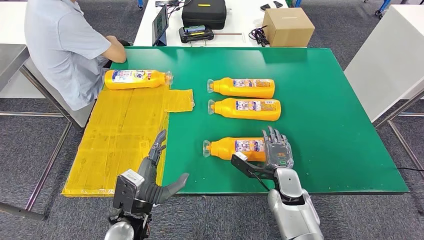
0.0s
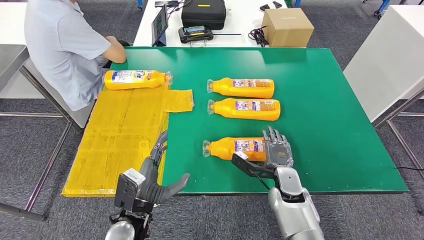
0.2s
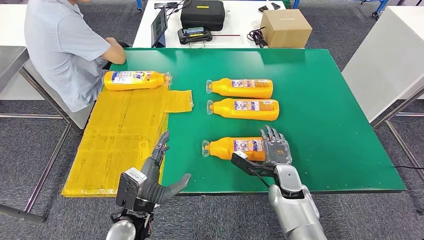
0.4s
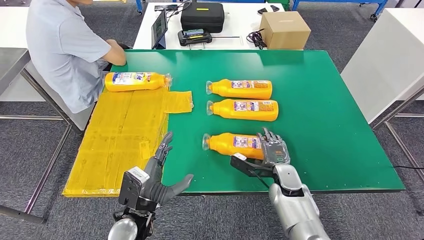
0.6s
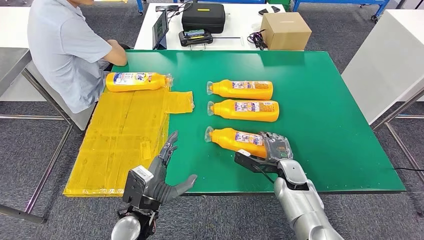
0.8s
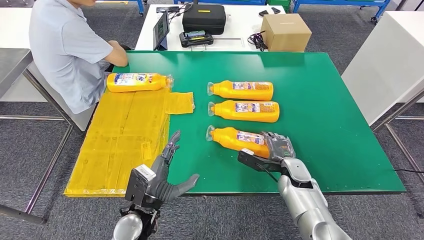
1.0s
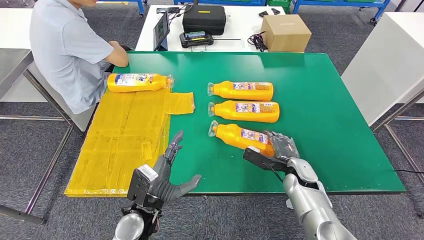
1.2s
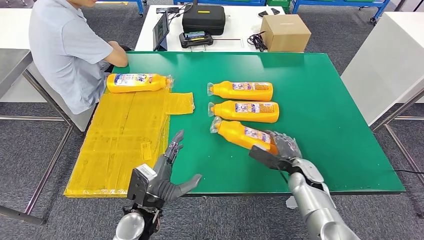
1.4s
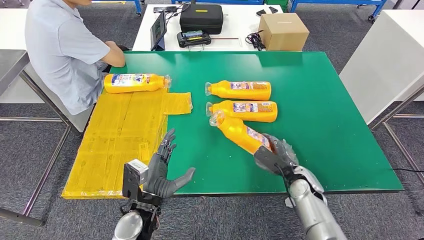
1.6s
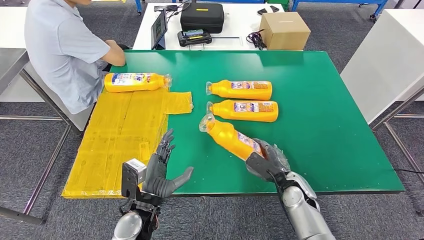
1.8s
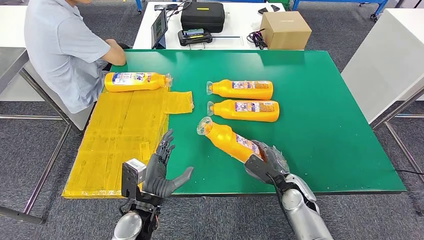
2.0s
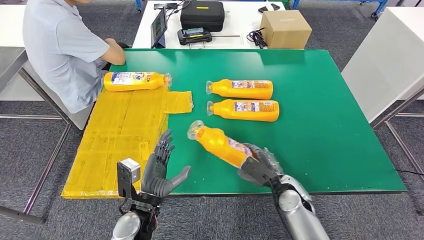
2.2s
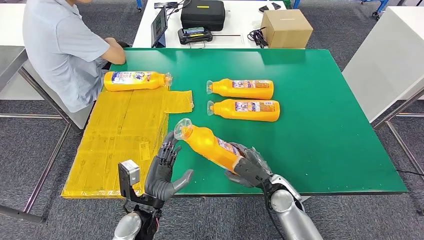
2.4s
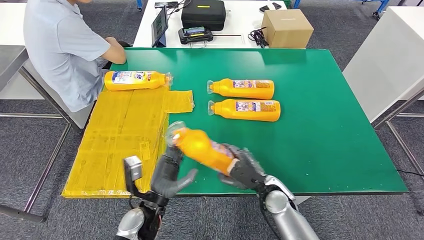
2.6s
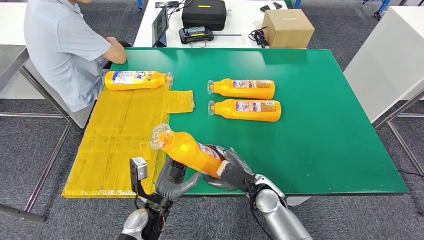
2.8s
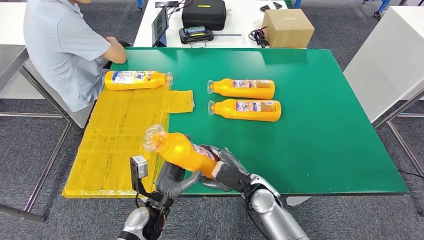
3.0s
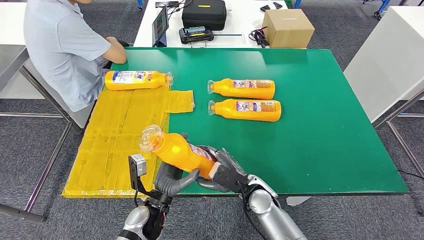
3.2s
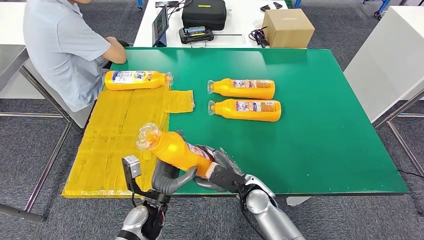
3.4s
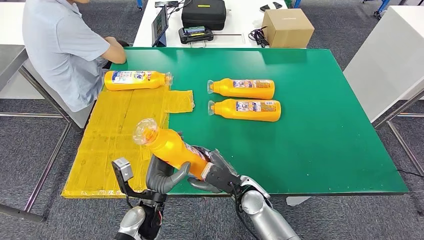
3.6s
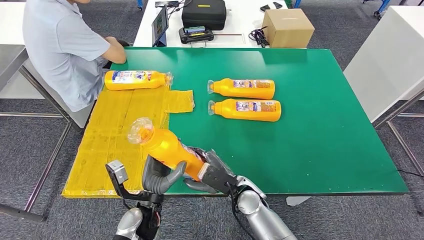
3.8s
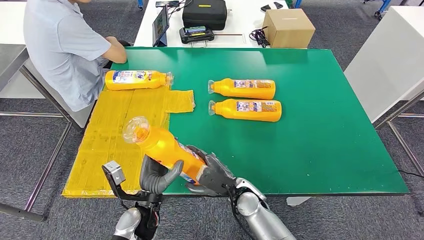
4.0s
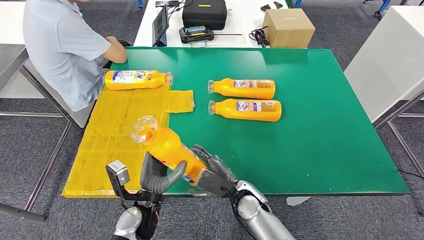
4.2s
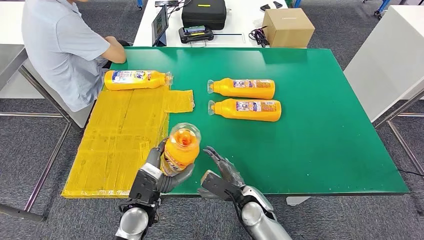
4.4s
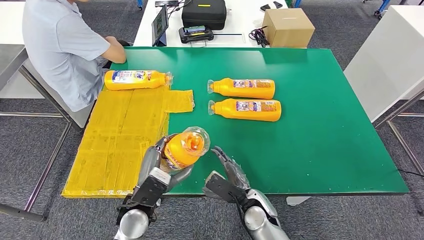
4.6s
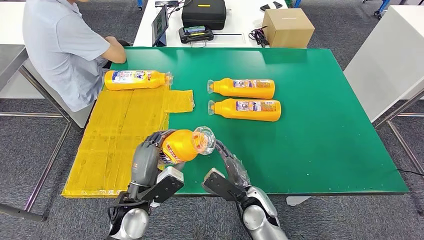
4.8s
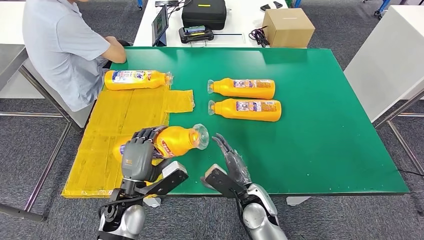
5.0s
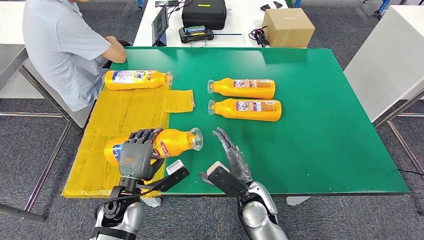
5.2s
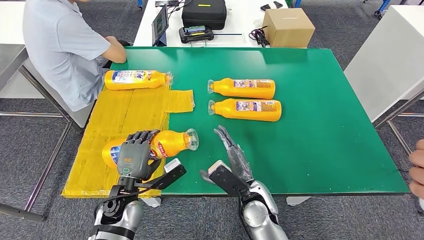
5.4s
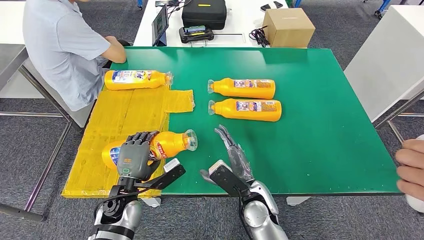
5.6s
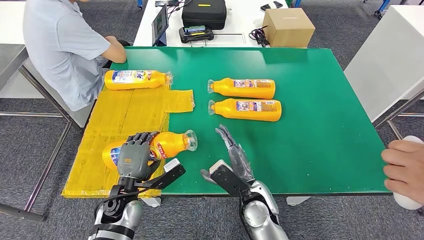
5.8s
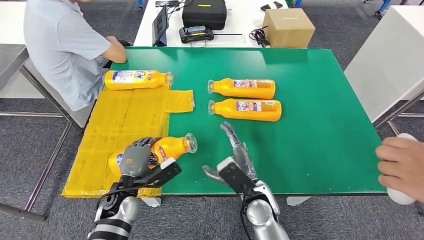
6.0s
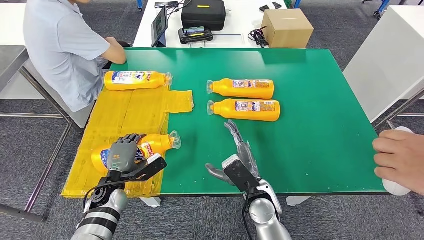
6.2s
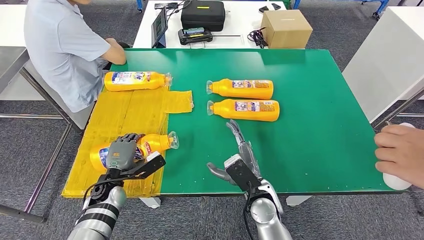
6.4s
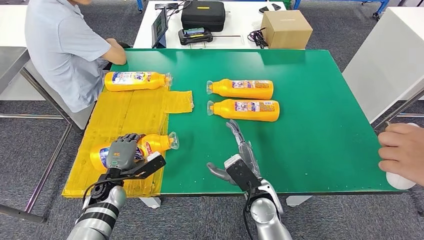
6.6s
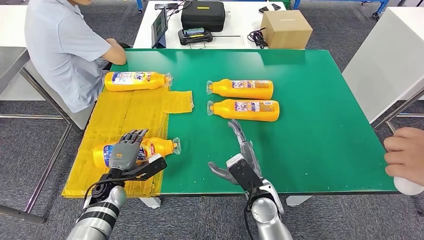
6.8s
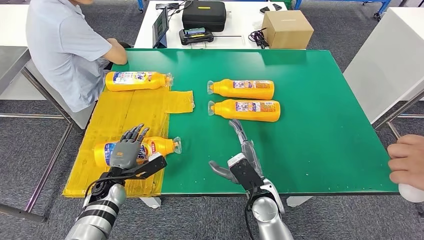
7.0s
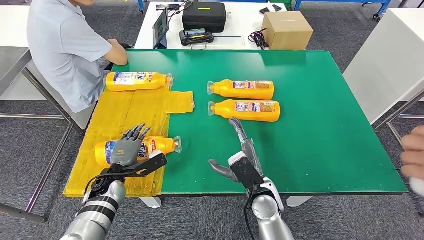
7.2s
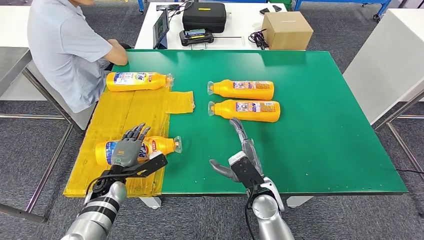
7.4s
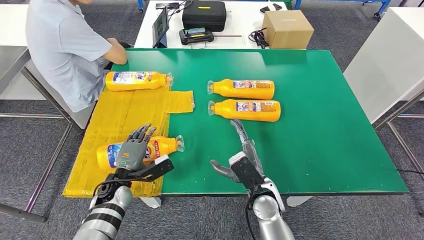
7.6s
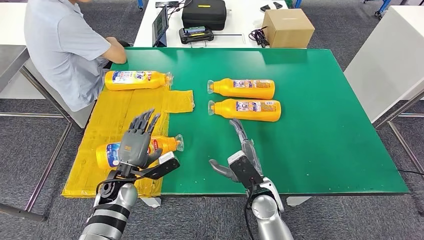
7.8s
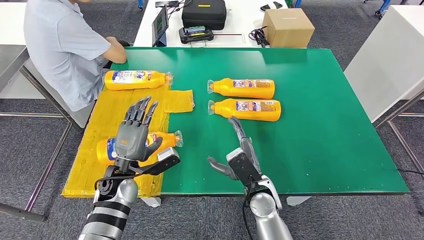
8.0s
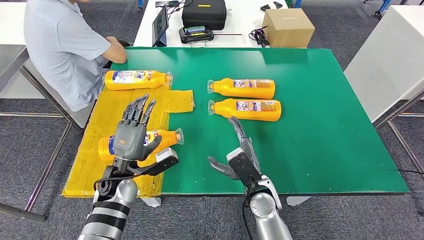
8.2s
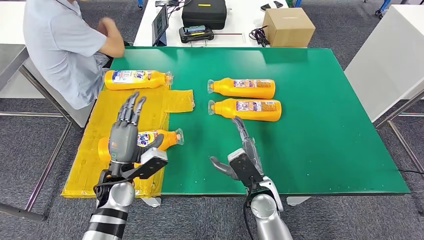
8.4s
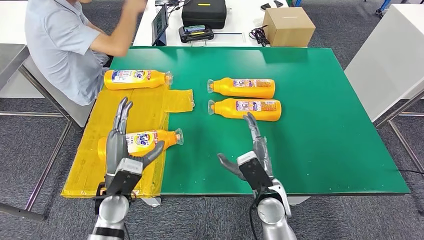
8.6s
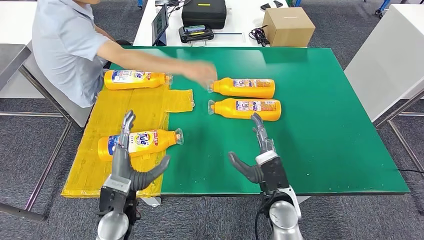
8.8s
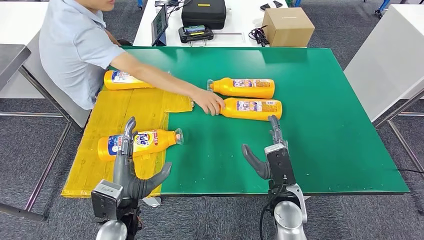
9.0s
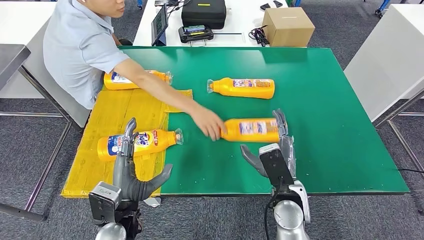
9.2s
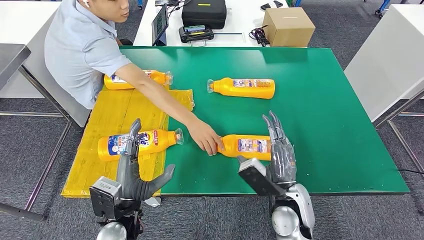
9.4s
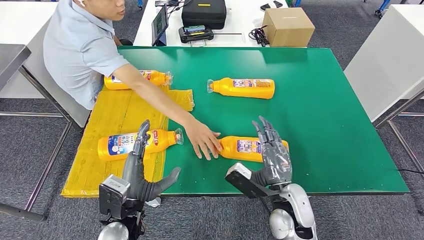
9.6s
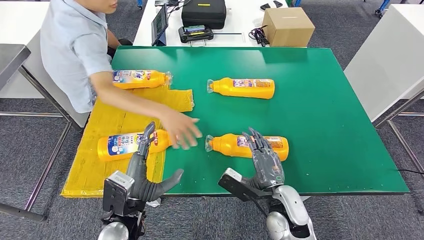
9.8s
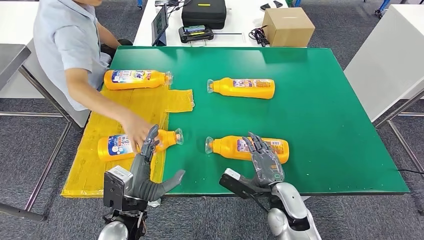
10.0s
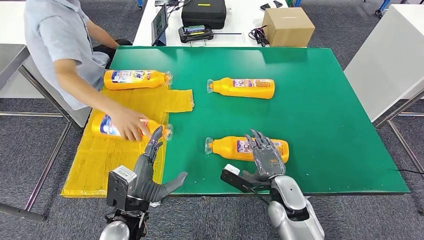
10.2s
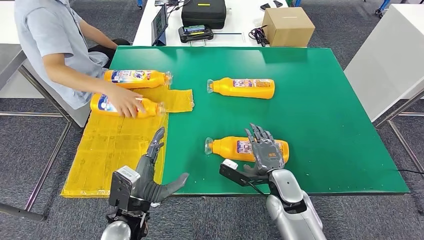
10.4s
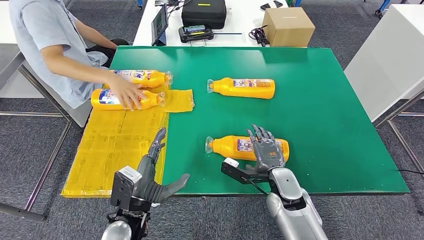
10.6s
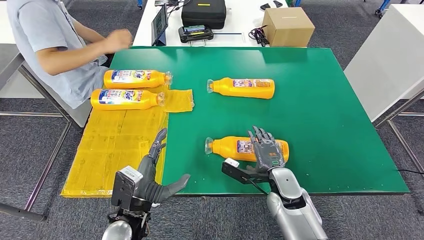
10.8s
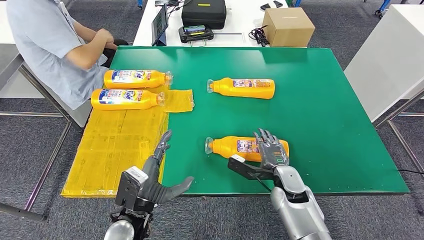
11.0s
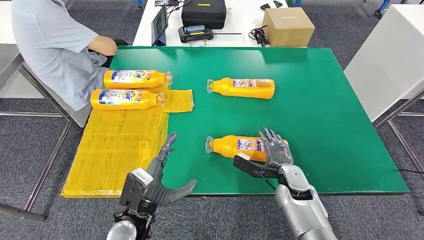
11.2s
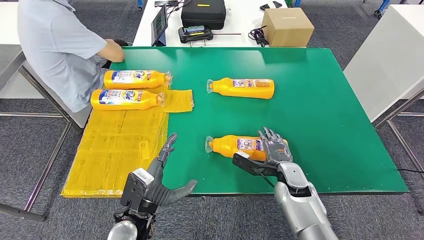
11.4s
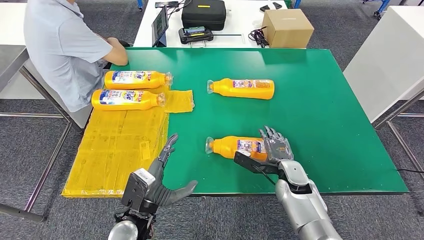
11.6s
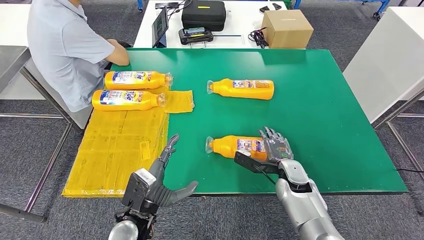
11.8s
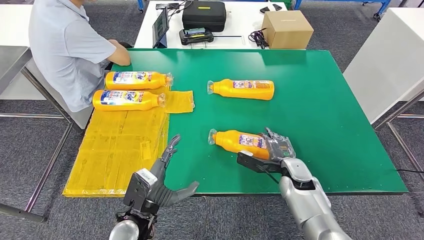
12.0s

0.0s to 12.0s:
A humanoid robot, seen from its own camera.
Step, 0.0s to 4.2s: Pick up the bottle from the table.
Step, 4.4s to 6.8s: Flip the bottle to face forward.
4.4s to 6.0s: The left hand is displaced to the left by some 5 cm. Meanwhile the right hand is displaced upward by approximately 5 cm.

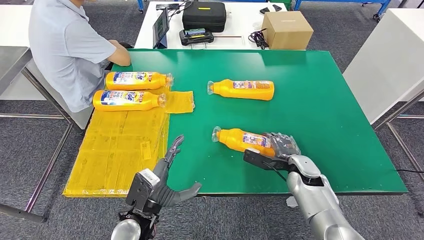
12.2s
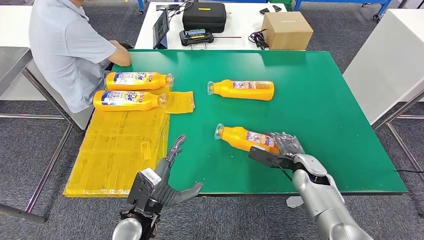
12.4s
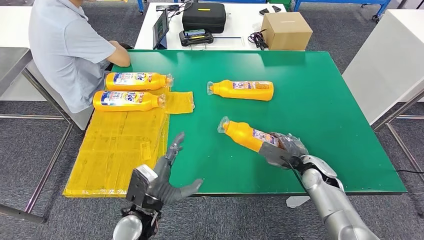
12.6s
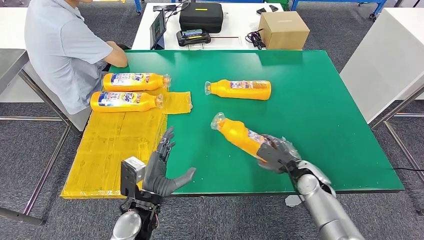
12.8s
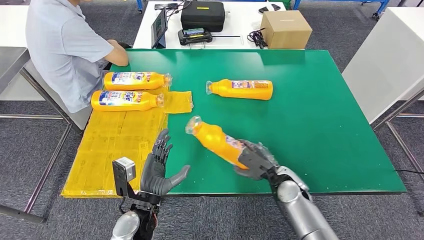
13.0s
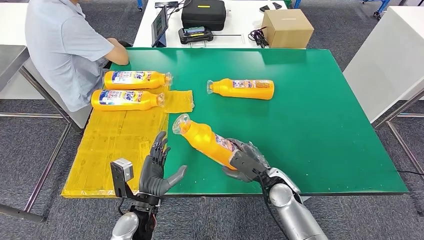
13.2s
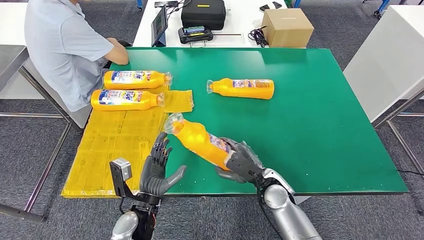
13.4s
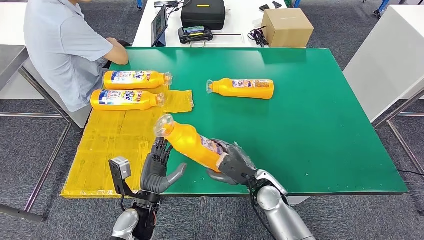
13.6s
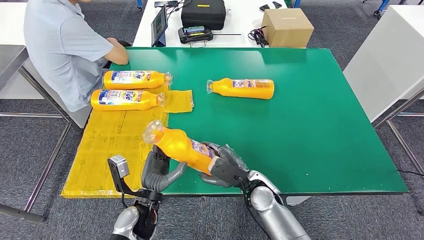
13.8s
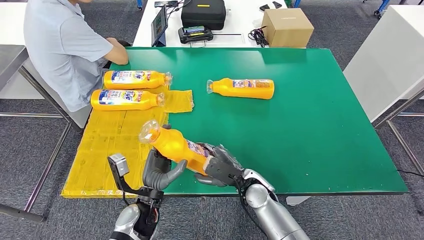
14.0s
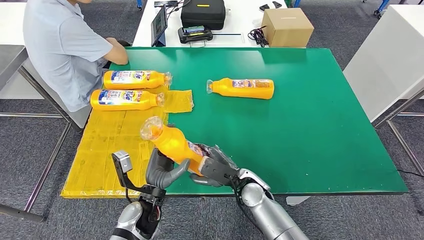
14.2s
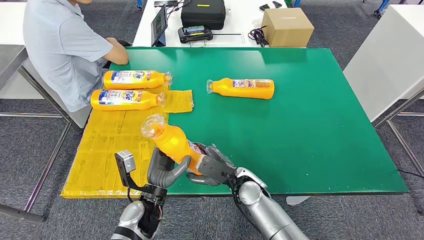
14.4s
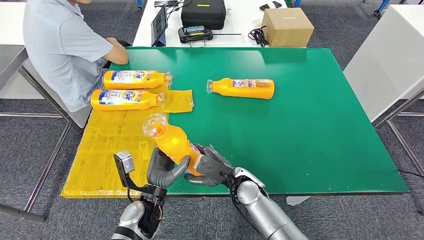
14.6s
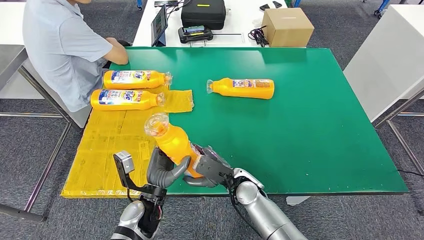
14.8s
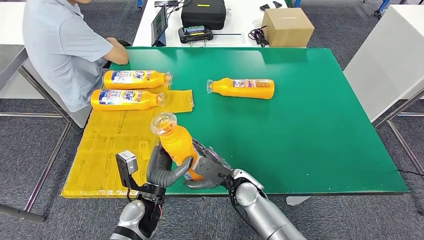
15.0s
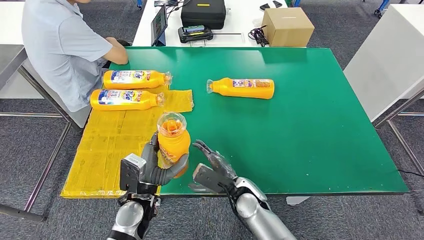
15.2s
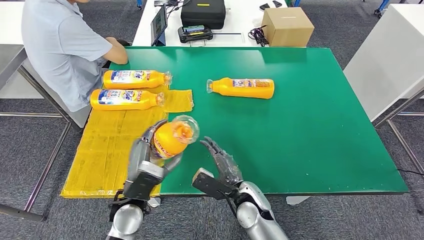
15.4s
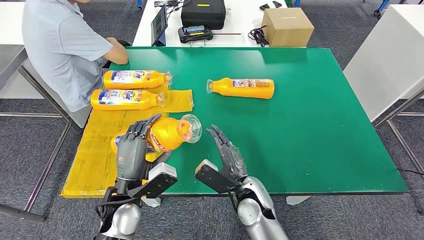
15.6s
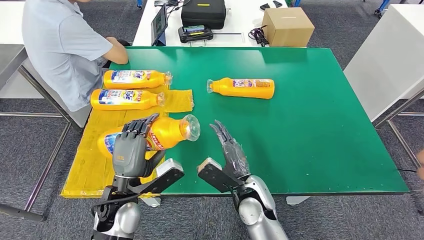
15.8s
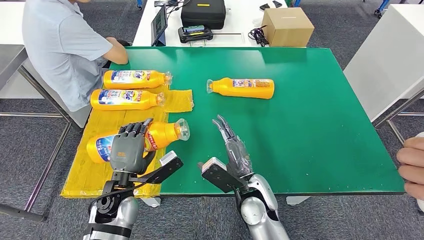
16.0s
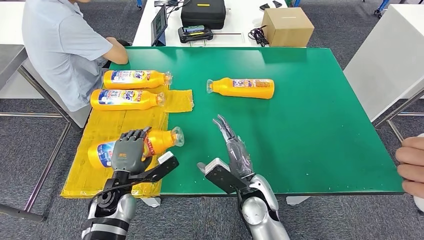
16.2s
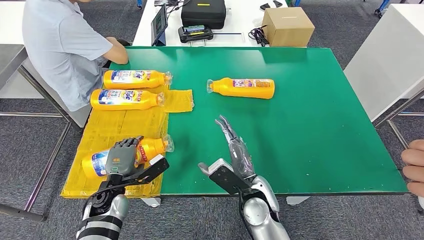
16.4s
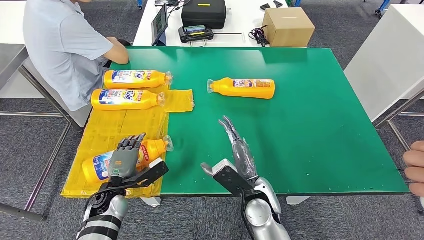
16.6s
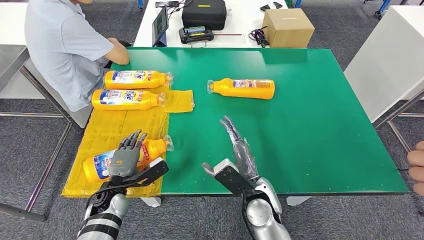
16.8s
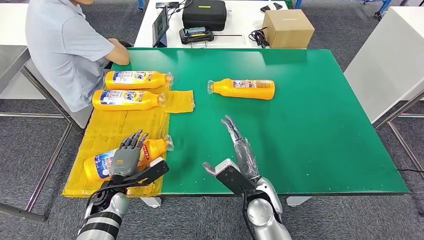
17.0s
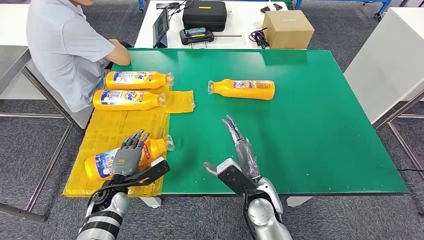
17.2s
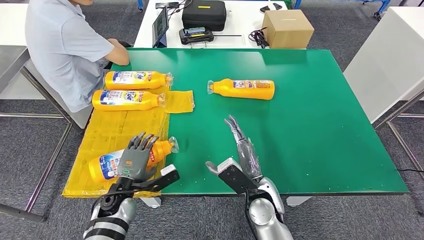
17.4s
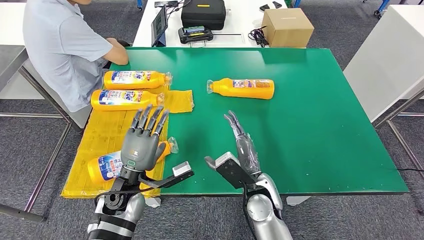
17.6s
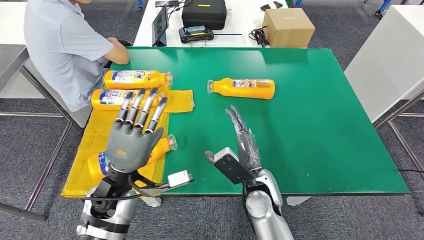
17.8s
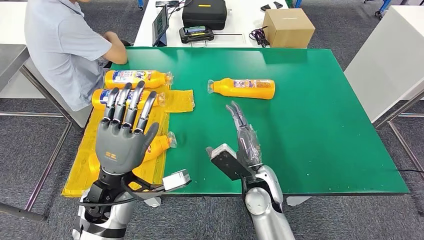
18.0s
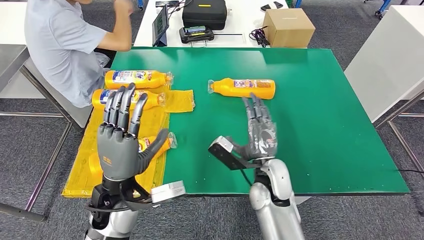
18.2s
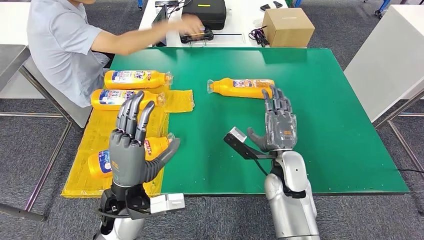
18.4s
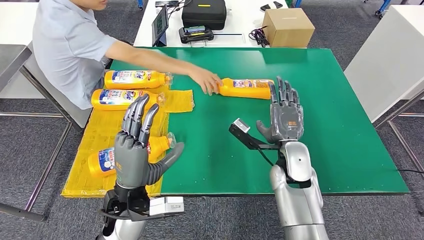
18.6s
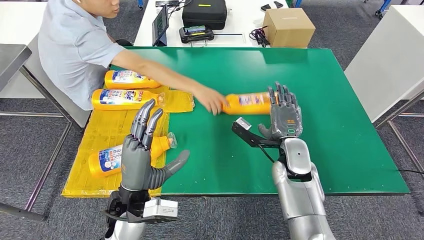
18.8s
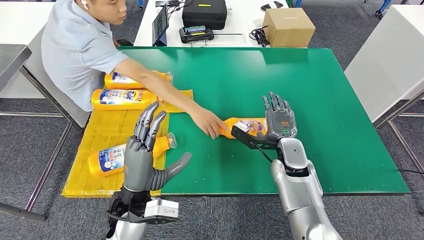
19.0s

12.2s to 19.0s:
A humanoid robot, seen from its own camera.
Step, 12.2s to 15.2s: Pick up the bottle from the table.
Step, 15.6s to 17.6s: Flip the bottle to face forward.
13.6s to 15.0s: The right hand moves to the left, approximately 5 cm.
15.0s to 16.2s: The right hand shifts by about 5 cm. Meanwhile the left hand moves to the left, some 10 cm.
16.2s to 17.6s: The left hand travels downward and back again, roughly 5 cm each way.
